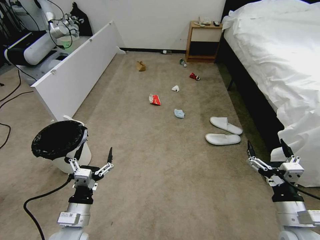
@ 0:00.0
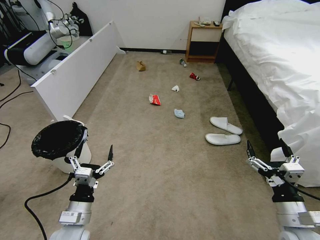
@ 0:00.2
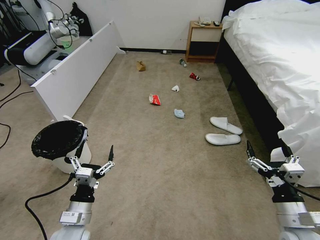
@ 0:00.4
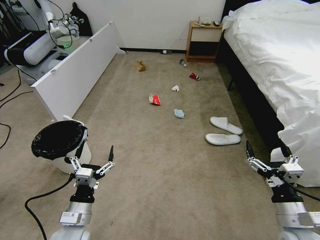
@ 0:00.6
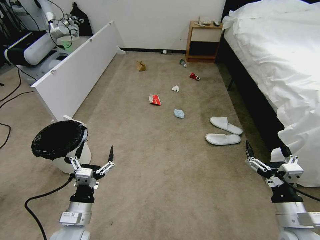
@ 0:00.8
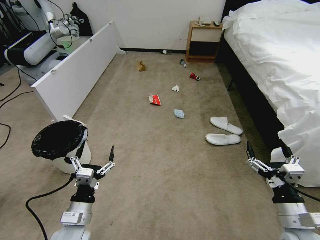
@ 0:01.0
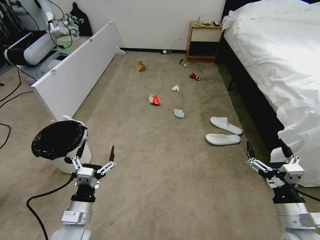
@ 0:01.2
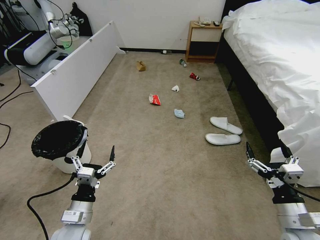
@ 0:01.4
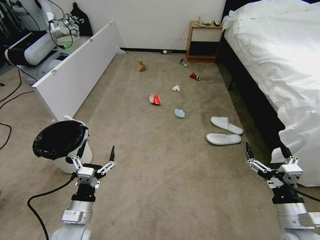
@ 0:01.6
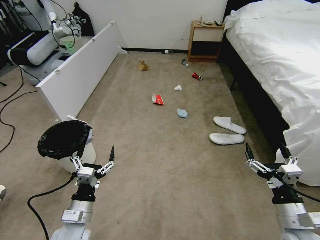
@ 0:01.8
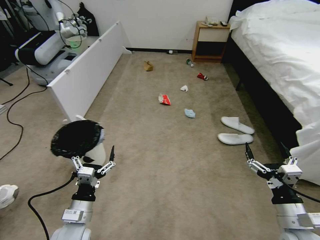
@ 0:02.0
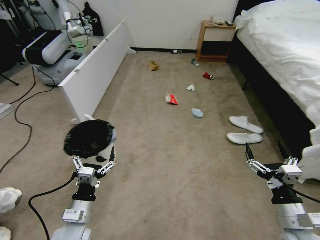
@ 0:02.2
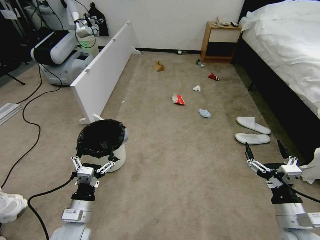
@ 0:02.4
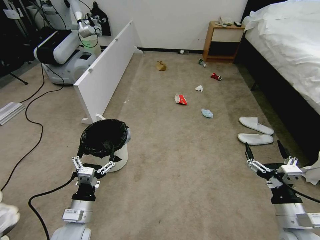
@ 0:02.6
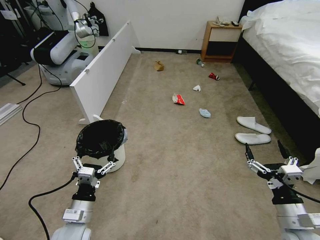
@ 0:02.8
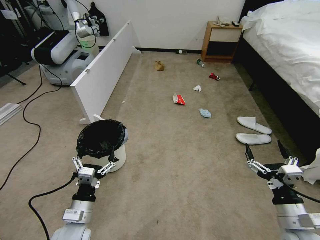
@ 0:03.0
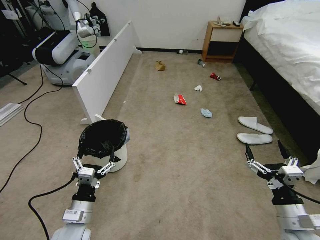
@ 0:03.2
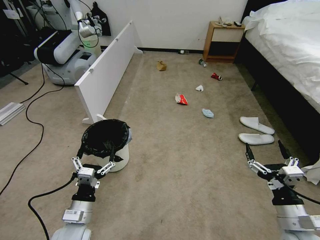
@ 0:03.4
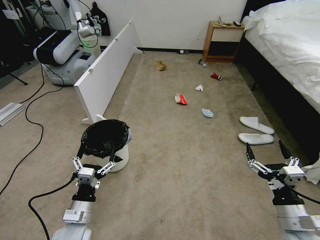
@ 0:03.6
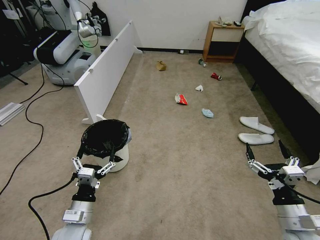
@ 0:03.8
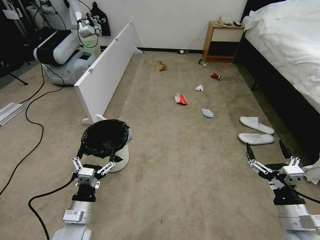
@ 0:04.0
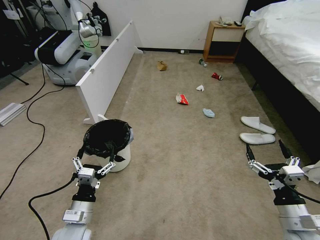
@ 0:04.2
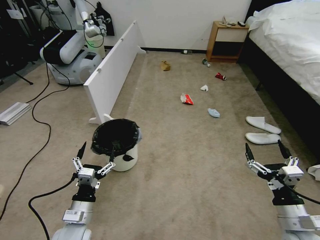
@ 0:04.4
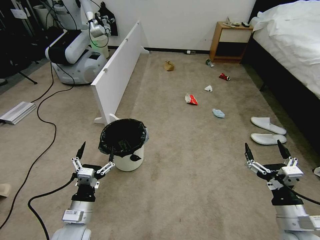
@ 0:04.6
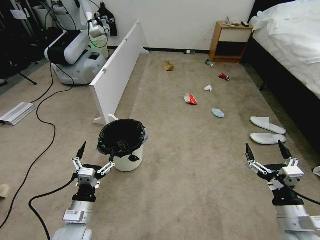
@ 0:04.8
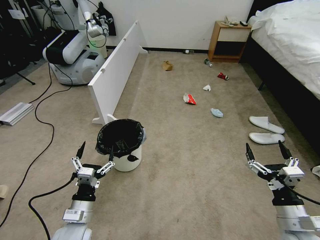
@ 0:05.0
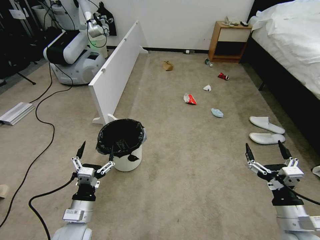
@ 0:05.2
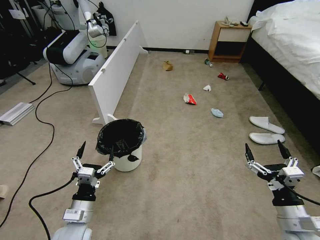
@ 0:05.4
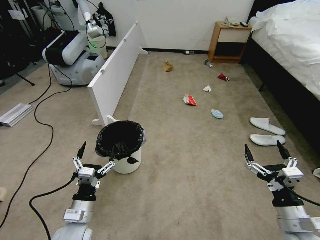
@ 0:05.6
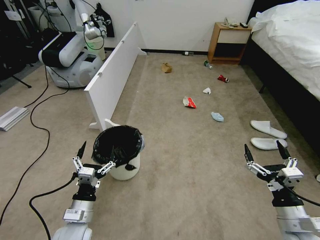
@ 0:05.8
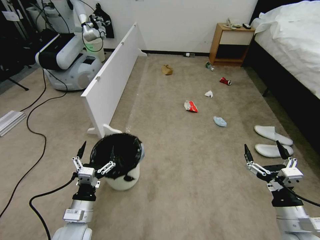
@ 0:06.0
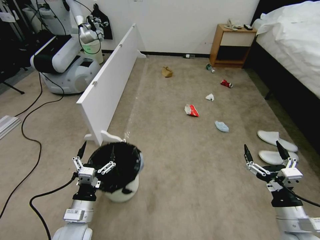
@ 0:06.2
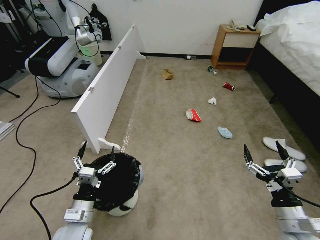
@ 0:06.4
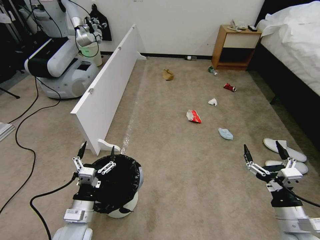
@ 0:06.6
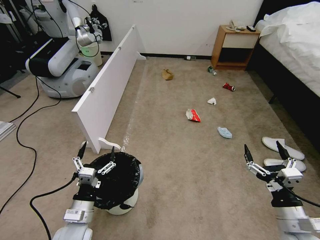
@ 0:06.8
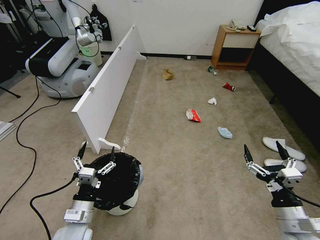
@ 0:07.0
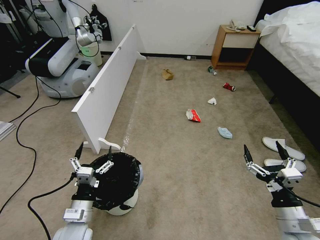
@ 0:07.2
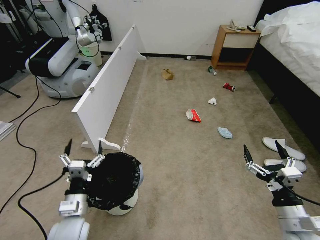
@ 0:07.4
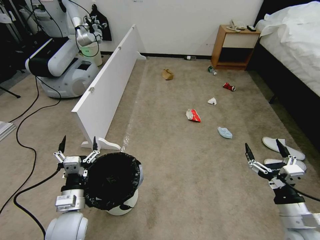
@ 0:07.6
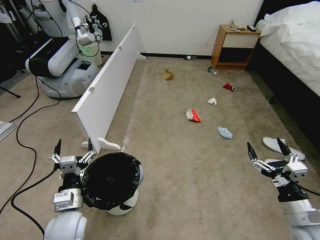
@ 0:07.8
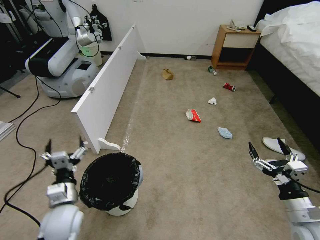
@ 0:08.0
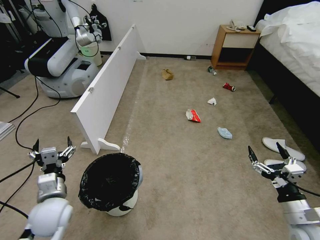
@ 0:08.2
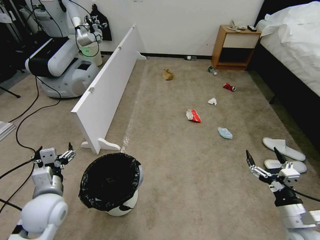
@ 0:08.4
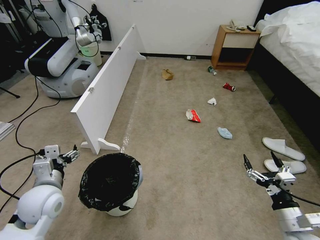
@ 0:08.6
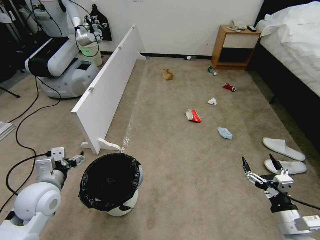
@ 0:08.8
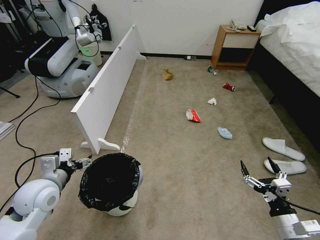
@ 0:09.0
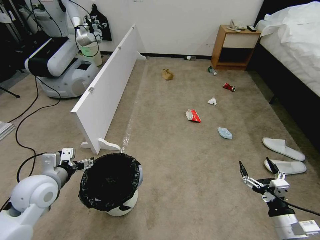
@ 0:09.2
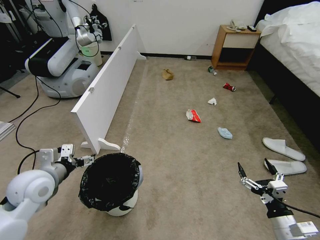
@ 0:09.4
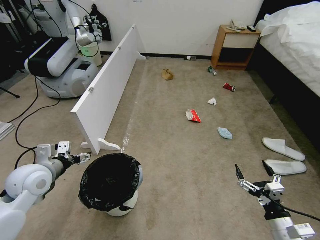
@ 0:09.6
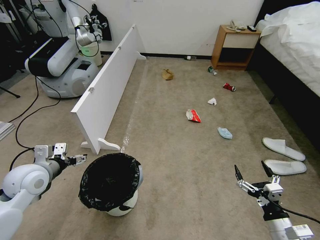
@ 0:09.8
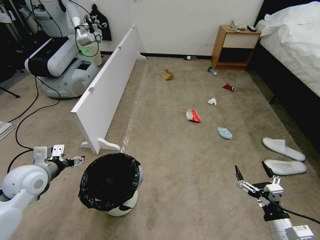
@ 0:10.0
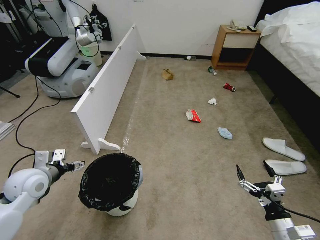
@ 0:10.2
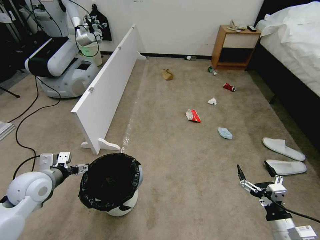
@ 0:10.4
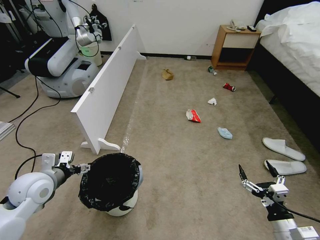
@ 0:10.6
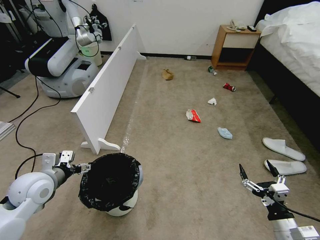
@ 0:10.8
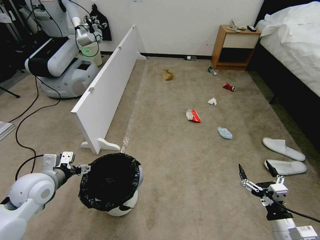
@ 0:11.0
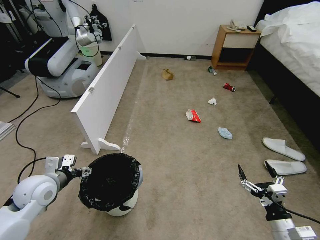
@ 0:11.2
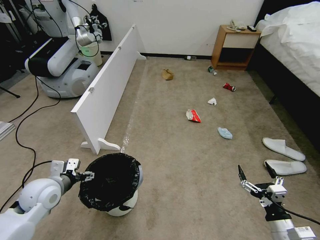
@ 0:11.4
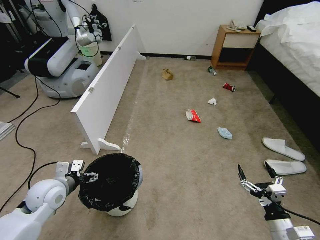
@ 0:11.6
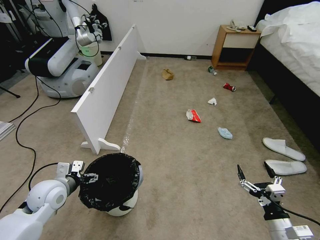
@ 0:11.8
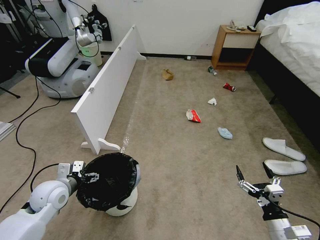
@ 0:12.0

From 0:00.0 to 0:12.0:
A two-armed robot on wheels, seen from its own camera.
Task of the whole recording: Pick up the trash bin and place the garbage on the floor into it.
From 0:04.4 to 0:06.0: Both grippers stay about where they are.
From 0:07.6 to 0:09.0: The right gripper shifts some 5 cm downward; the left gripper moves upward, to the left and forward, about 10 cm.
From 0:10.4 to 0:12.0: The left gripper heads downward, covering approximately 5 cm.

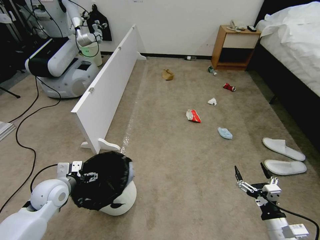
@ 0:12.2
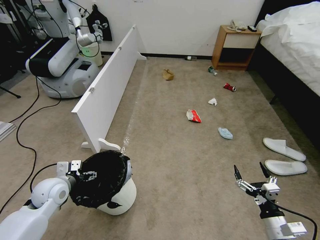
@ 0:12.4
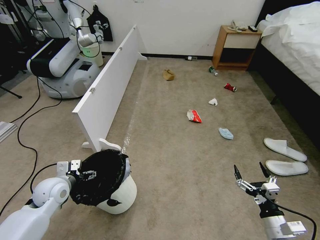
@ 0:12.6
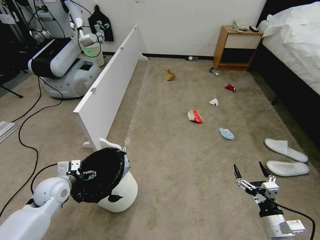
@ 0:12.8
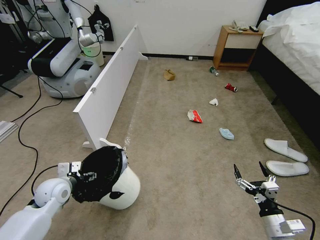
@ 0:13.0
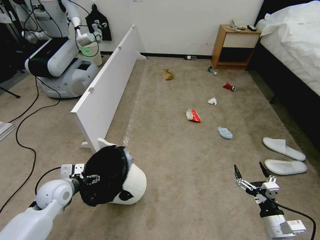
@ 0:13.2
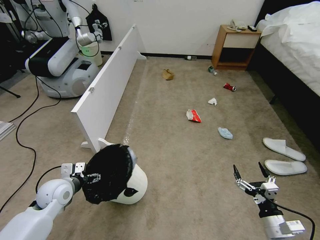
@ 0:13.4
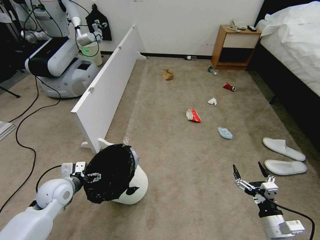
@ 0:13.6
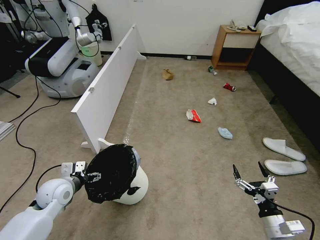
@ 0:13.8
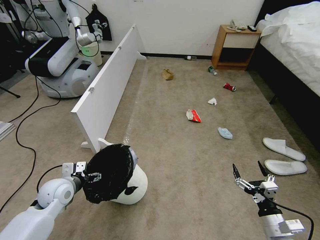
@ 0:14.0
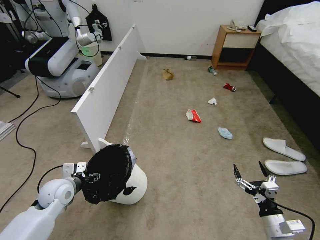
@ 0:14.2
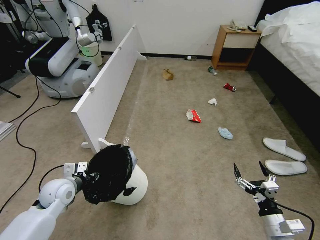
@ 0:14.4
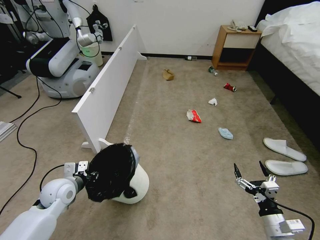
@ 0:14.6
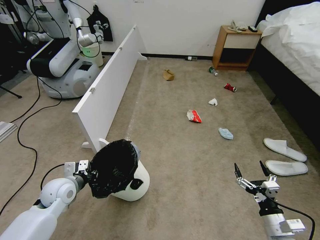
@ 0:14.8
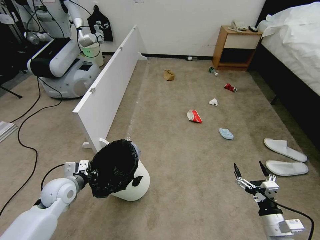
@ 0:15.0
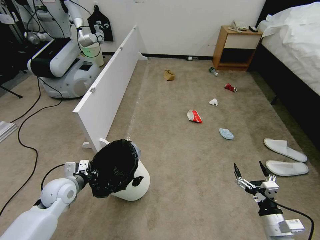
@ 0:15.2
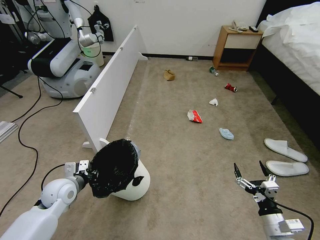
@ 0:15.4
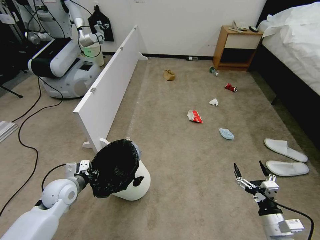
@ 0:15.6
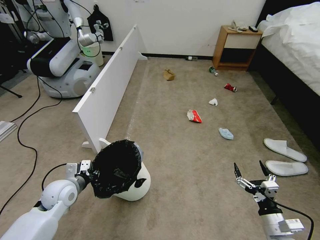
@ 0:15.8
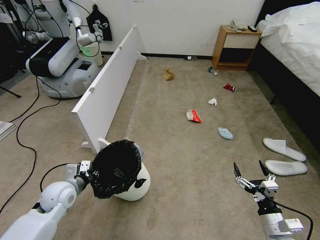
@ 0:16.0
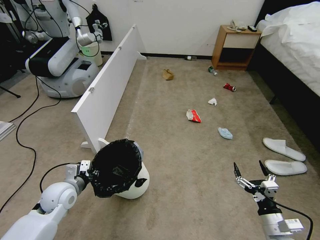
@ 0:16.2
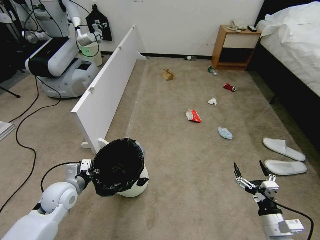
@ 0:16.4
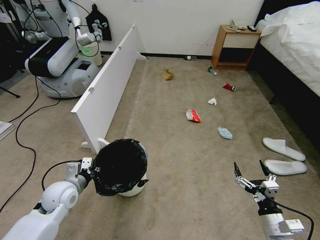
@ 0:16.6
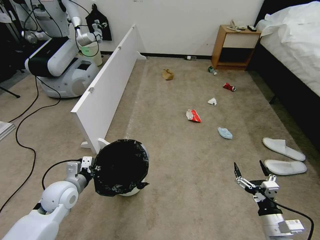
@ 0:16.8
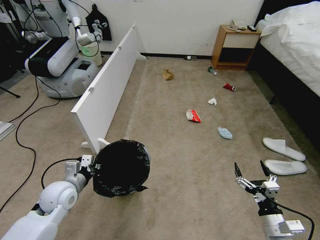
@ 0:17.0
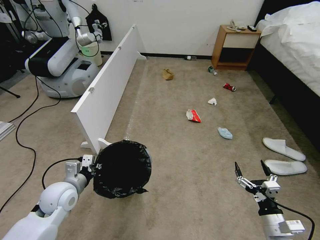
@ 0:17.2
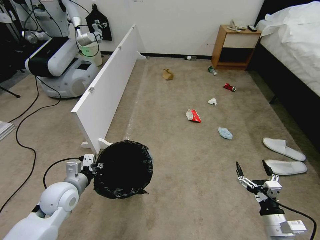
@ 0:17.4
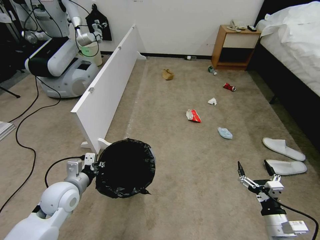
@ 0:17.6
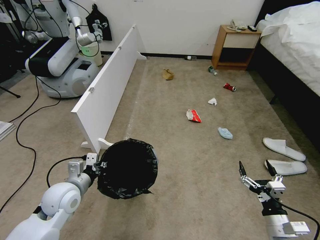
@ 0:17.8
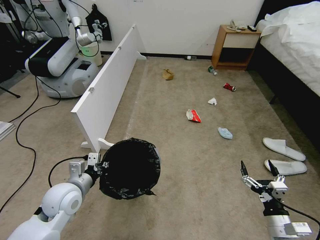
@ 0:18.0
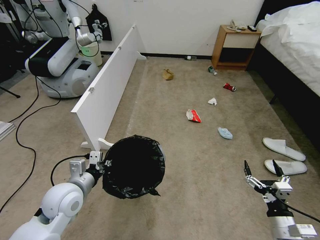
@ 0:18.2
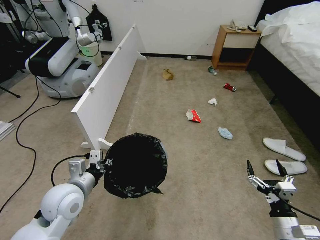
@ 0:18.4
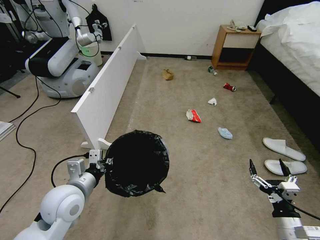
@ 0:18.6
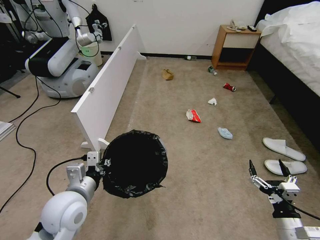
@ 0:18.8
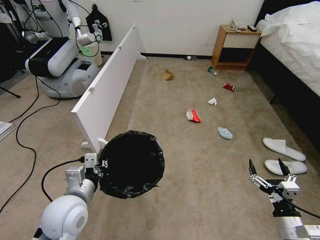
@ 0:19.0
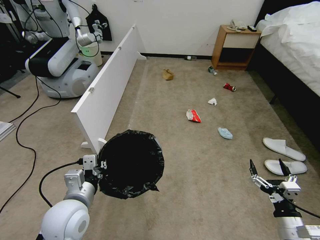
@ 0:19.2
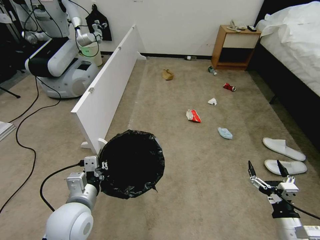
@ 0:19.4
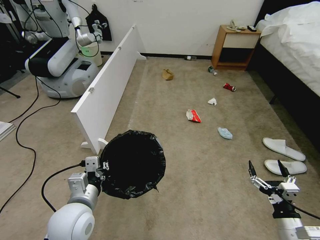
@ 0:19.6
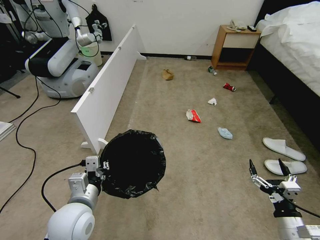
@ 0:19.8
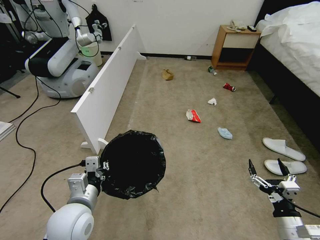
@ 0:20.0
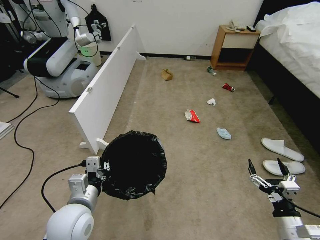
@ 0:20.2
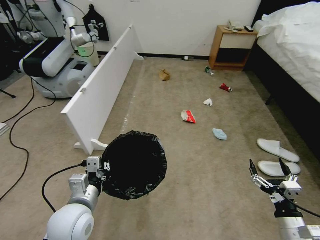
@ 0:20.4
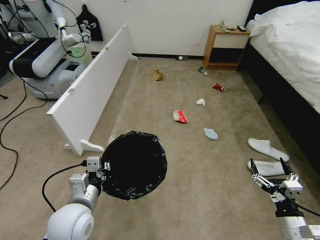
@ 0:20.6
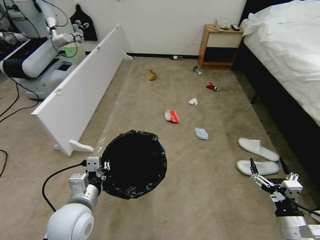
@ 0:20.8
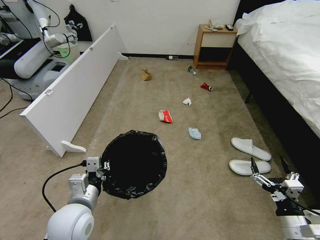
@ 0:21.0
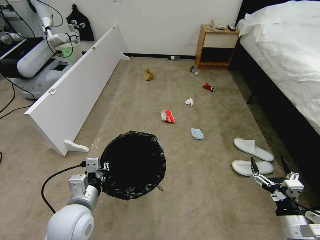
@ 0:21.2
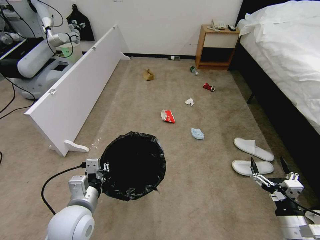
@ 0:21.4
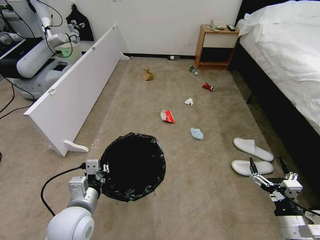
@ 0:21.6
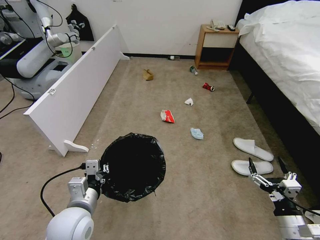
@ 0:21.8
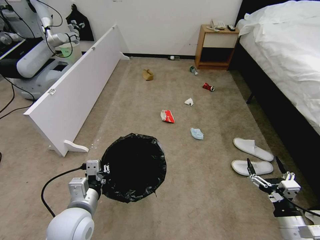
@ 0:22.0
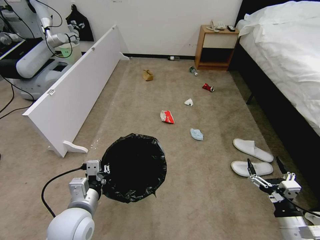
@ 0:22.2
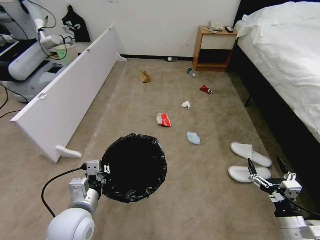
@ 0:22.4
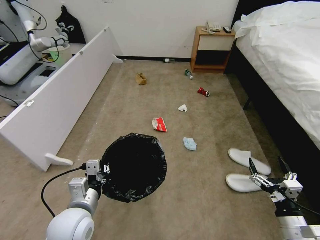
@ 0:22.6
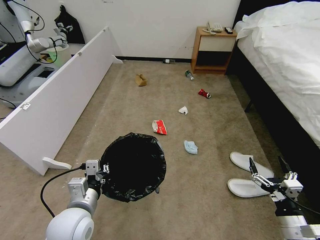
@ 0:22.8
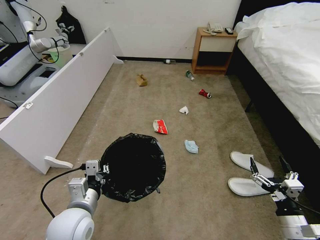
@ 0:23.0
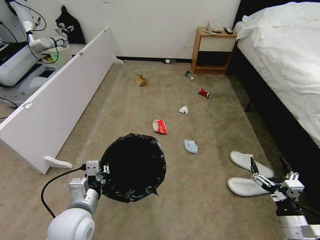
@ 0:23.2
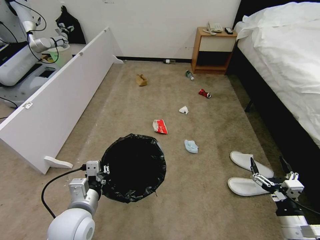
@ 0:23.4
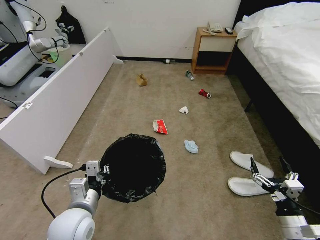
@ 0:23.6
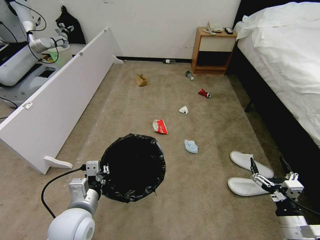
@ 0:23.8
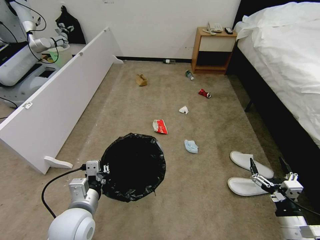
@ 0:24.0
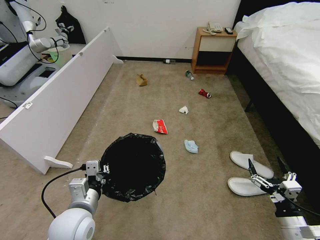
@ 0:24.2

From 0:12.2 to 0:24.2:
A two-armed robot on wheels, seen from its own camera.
Task of the whole recording: Pick up the trash bin and place the garbage on the floor into it.
From 0:12.2 to 0:13.8: The grippers move only a little.
From 0:13.8 to 0:15.2: The left gripper closes its fingers.
From 0:15.2 to 0:16.6: The grippers move only a little.
From 0:16.6 to 0:18.2: The left gripper is displaced upward by about 5 cm.
From 0:18.2 to 0:19.8: The left gripper travels backward and to the right by some 10 cm.
From 0:22.6 to 0:24.2: The two grippers keep their place.
